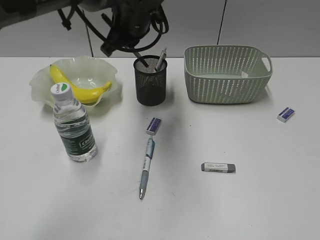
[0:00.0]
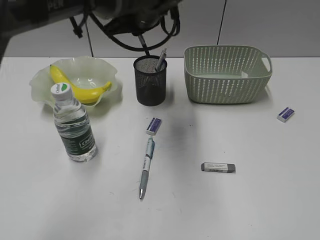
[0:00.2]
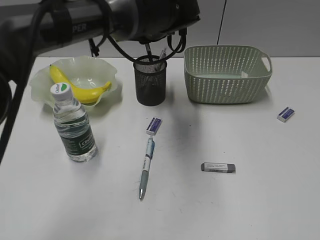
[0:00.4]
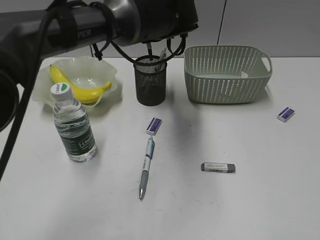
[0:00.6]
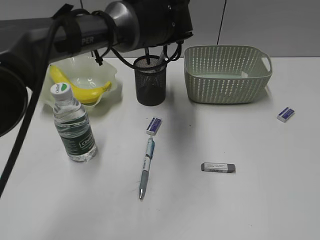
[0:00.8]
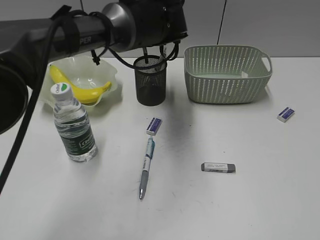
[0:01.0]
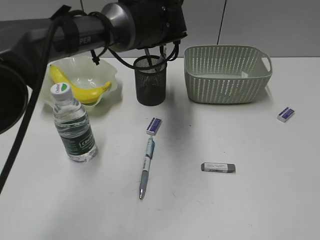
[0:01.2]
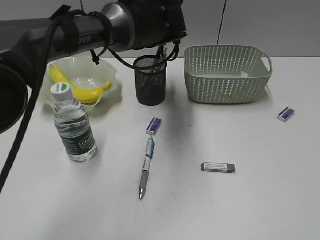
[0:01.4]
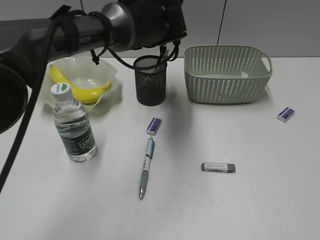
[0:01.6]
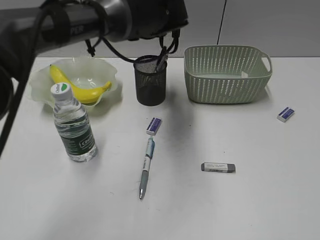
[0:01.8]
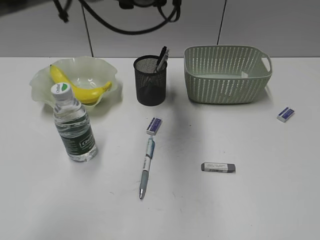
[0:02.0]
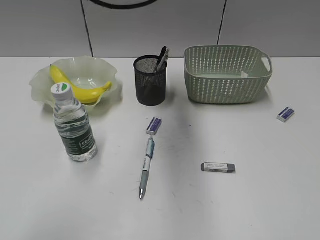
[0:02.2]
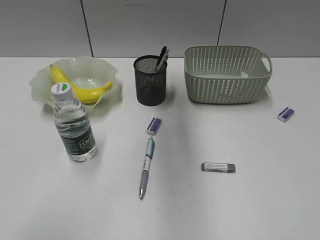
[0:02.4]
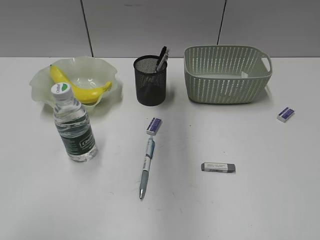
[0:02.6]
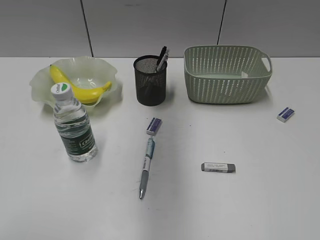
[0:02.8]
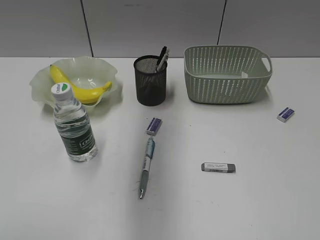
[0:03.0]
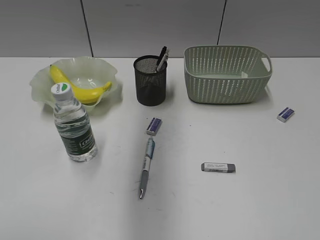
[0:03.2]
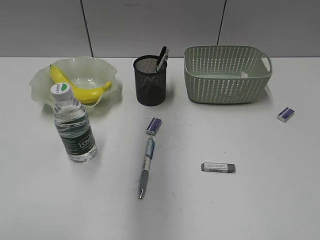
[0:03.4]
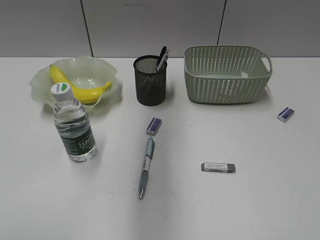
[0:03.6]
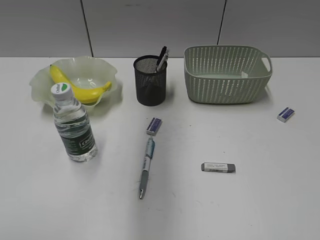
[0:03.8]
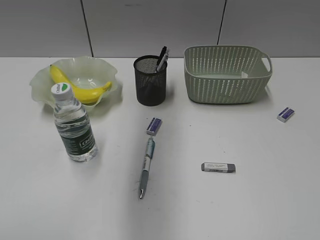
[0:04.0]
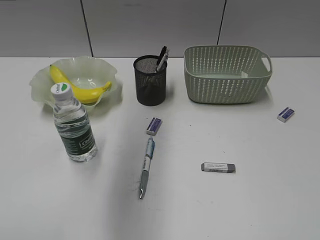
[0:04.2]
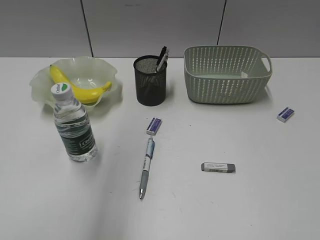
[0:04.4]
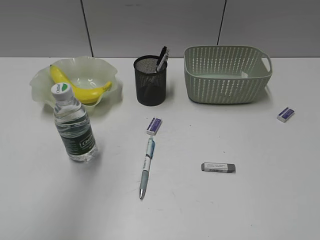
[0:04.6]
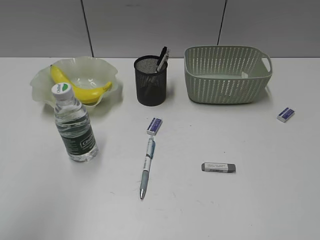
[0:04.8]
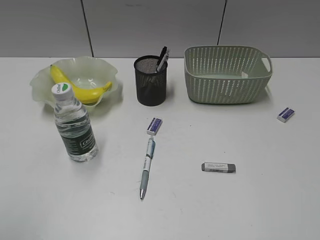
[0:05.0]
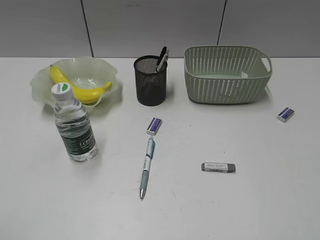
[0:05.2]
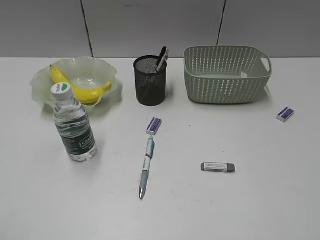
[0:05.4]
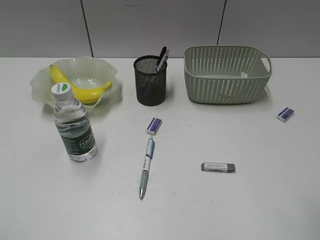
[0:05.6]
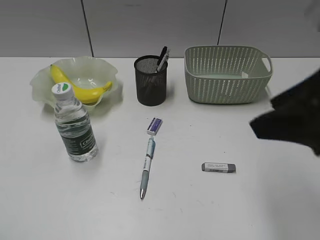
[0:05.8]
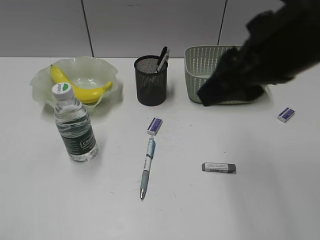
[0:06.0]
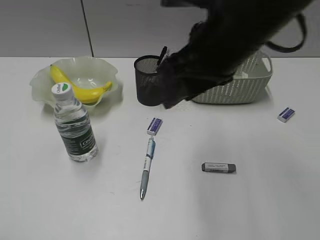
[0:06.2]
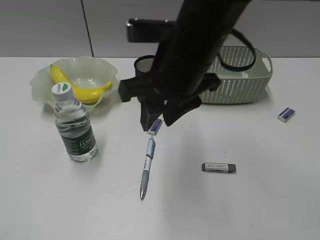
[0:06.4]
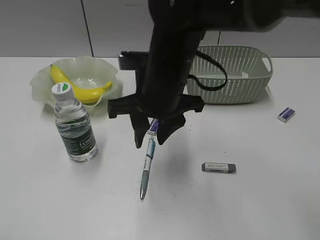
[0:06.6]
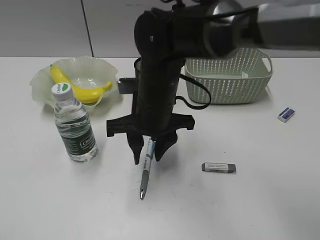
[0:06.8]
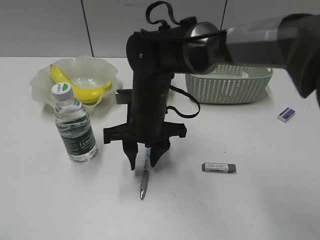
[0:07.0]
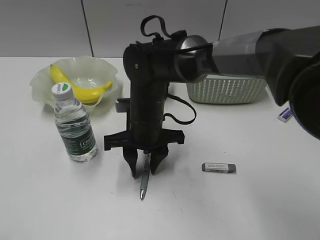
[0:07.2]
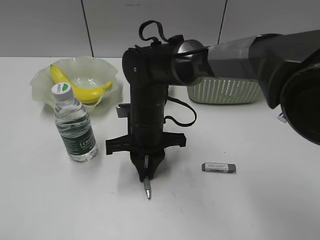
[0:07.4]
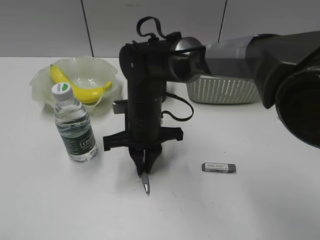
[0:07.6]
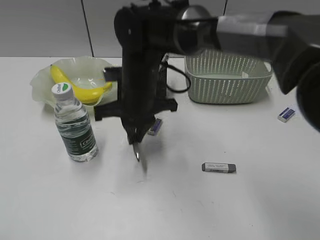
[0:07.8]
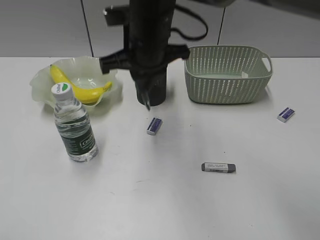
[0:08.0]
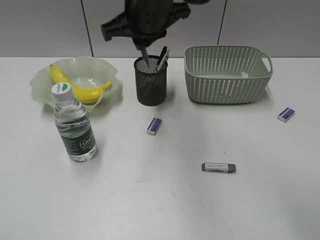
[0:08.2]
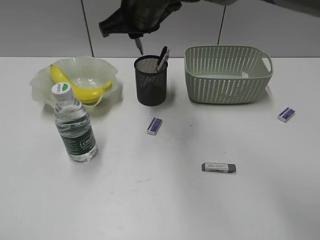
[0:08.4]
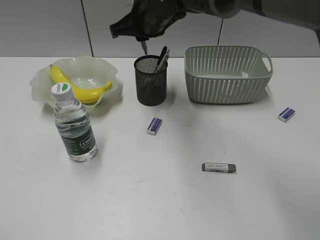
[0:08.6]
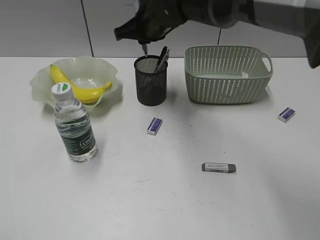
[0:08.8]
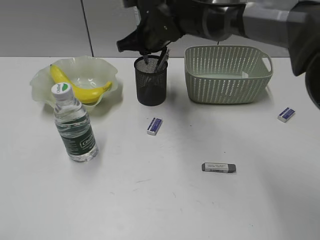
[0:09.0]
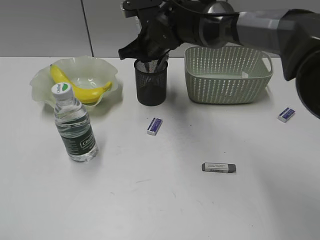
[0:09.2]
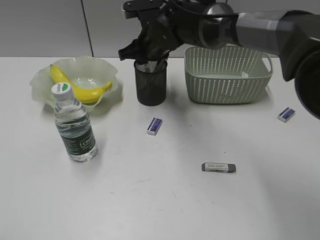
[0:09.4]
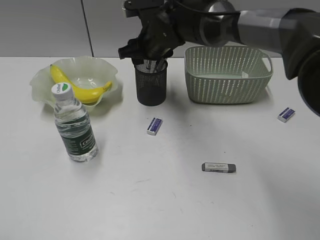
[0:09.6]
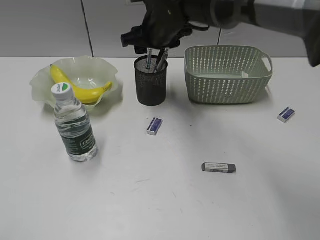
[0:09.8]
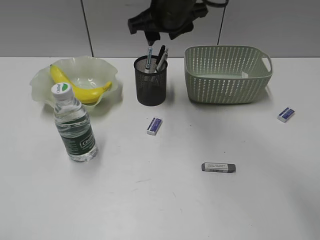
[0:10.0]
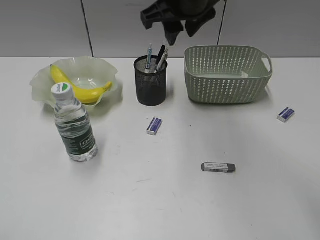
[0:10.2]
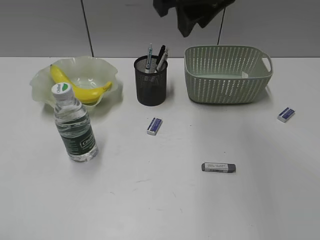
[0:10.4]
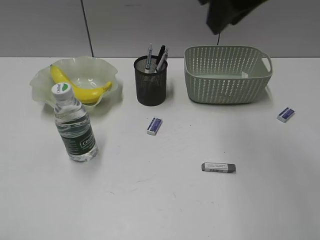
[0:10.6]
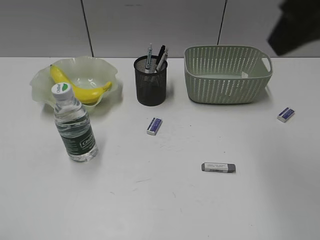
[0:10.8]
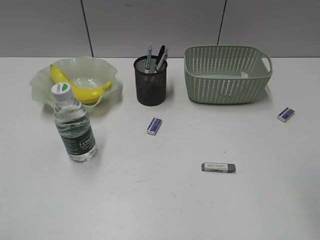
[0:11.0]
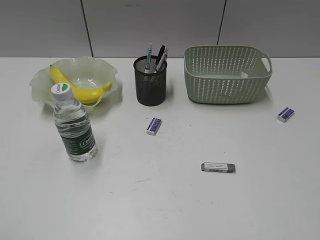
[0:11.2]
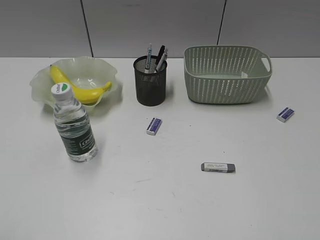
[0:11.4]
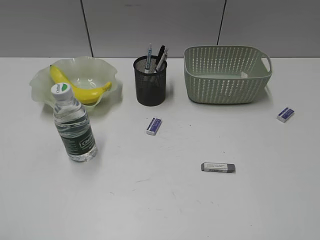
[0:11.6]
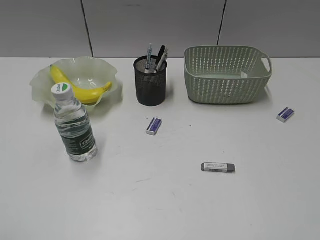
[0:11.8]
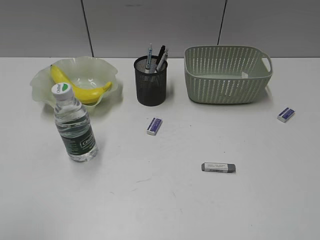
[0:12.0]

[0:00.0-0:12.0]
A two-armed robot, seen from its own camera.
Step, 0:01.8 to 0:07.4: Grasp the blue pen with right gripper.
Step, 0:07.6 to 0:09.6: Place the blue pen in pen holder with right gripper.
0:00.0 to 0:01.6: The left gripper shifts by approximately 5 cm, and opens up.
0:01.6 to 0:03.0: The left gripper heads upward, backward and to the left, covering some 25 cm.
0:03.0 to 0:04.4: The left gripper goes about 10 cm backward and to the left.
0:04.4 to 0:06.0: The left gripper heads backward, to the left and downward, covering approximately 35 cm, while the right gripper goes some 30 cm forward and to the left, and closes.
0:06.0 to 0:07.6: The right gripper heads downward, to the left and forward, covering approximately 30 cm, and closes up.
0:07.6 to 0:09.0: The right gripper travels forward and upward by about 15 cm.
0:09.0 to 0:10.4: The right gripper heads upward, backward and to the right, covering some 20 cm, and opens.
0:10.4 to 0:12.0: The left gripper shifts by some 5 cm; the right gripper heads backward and to the right, covering approximately 40 cm.

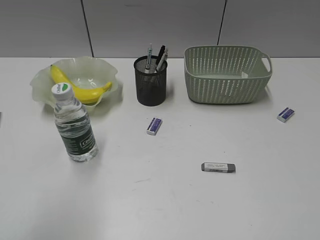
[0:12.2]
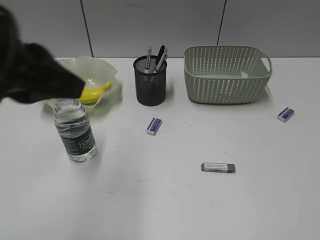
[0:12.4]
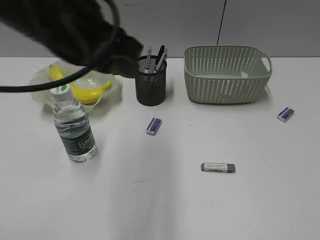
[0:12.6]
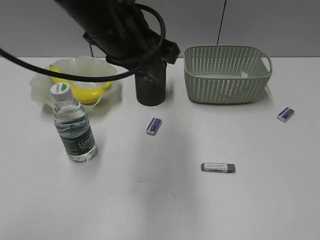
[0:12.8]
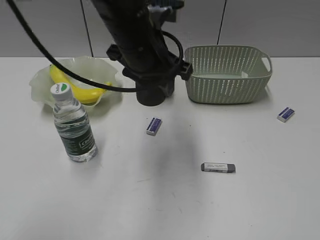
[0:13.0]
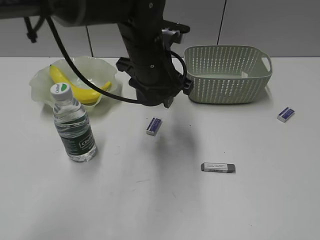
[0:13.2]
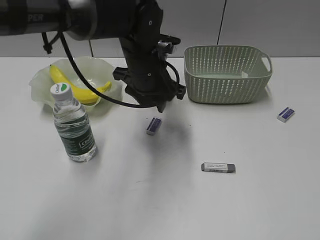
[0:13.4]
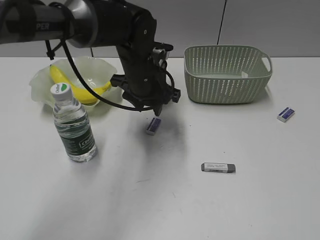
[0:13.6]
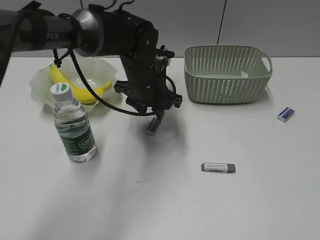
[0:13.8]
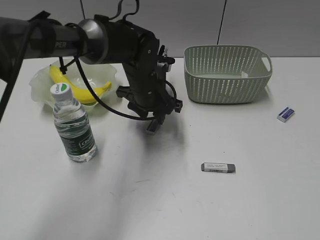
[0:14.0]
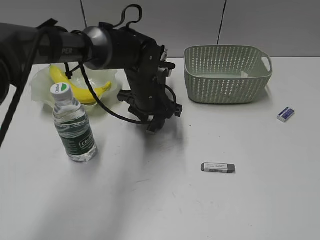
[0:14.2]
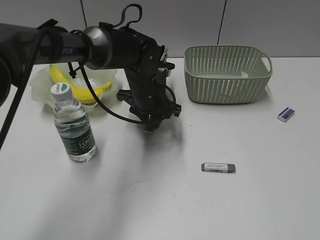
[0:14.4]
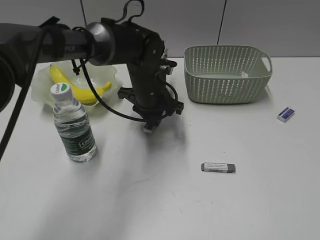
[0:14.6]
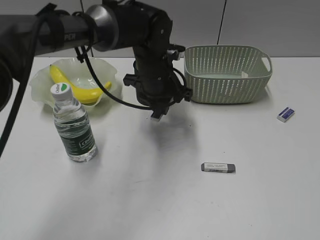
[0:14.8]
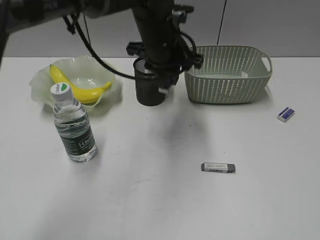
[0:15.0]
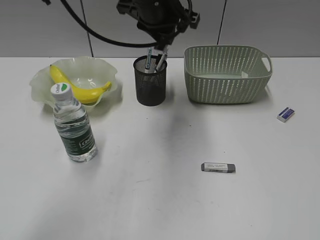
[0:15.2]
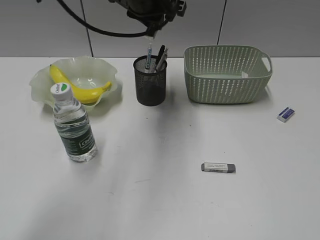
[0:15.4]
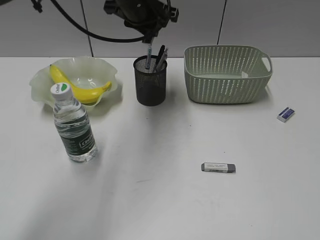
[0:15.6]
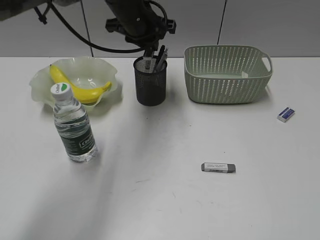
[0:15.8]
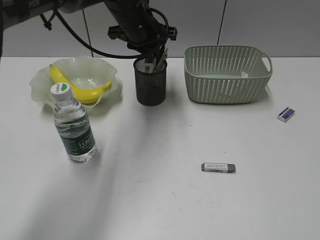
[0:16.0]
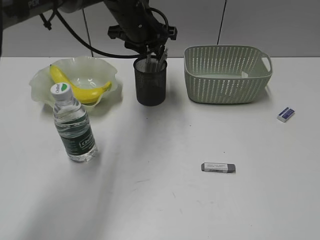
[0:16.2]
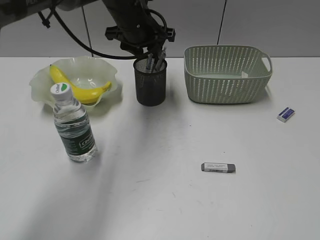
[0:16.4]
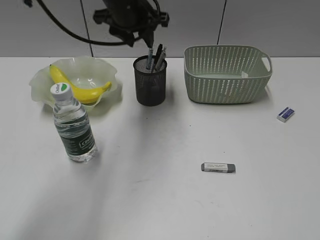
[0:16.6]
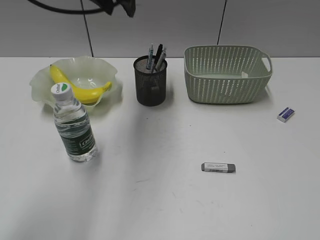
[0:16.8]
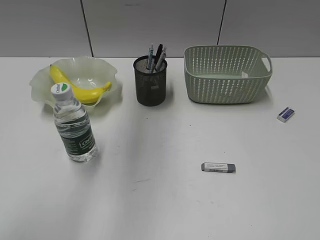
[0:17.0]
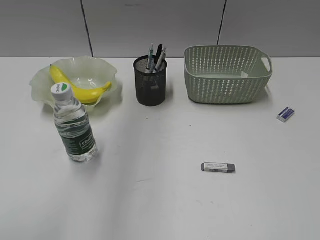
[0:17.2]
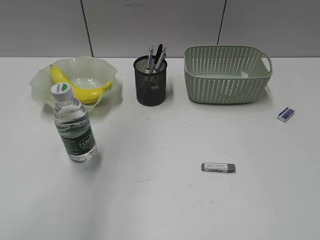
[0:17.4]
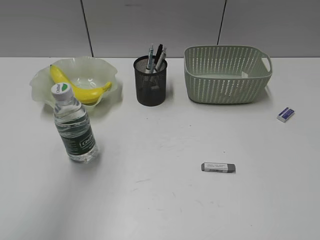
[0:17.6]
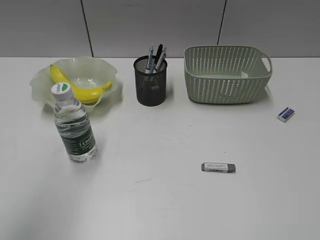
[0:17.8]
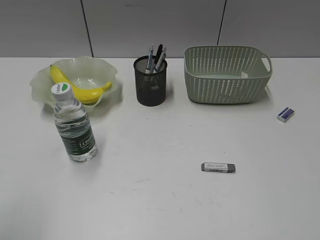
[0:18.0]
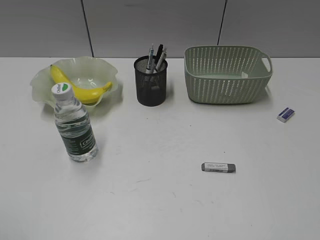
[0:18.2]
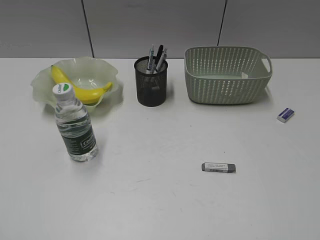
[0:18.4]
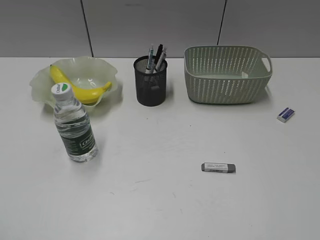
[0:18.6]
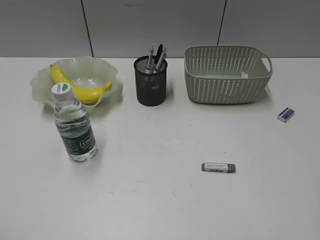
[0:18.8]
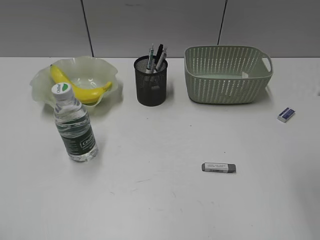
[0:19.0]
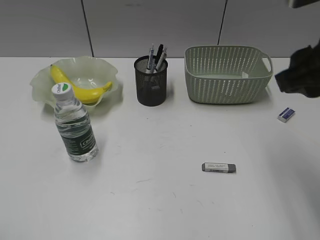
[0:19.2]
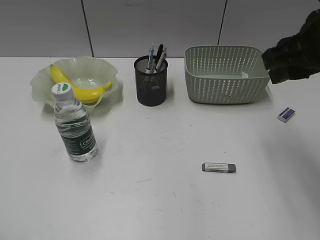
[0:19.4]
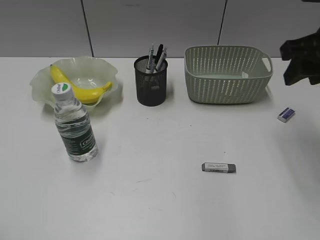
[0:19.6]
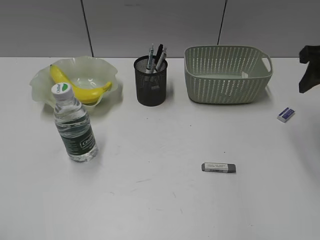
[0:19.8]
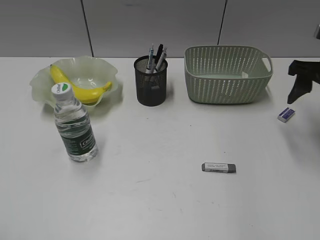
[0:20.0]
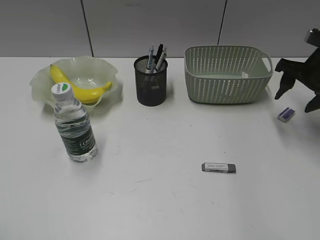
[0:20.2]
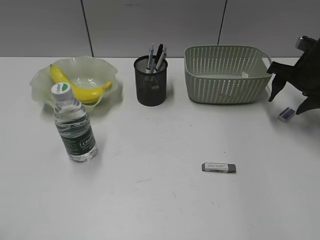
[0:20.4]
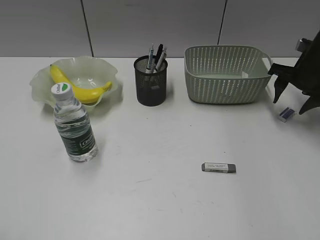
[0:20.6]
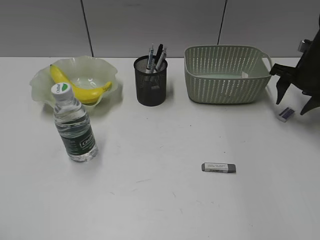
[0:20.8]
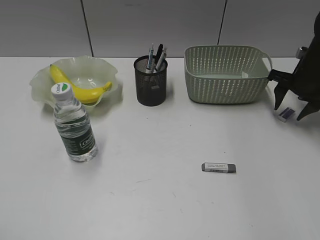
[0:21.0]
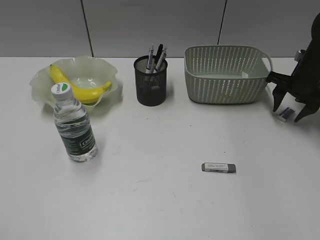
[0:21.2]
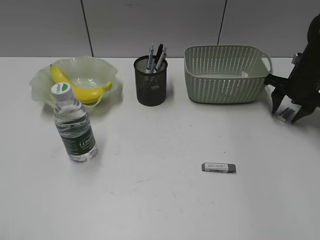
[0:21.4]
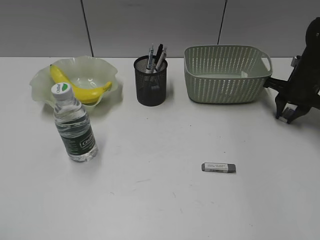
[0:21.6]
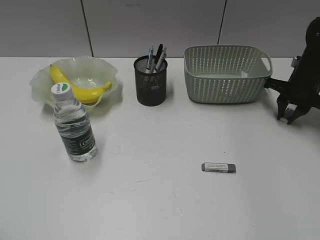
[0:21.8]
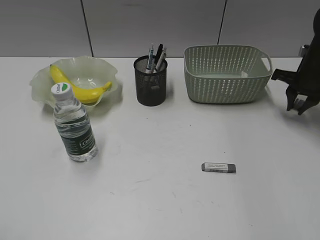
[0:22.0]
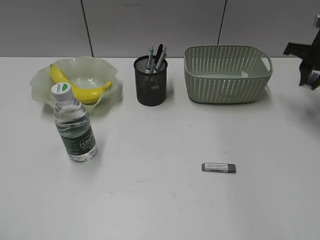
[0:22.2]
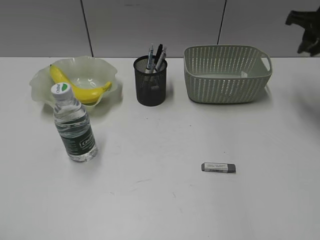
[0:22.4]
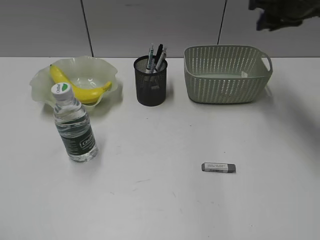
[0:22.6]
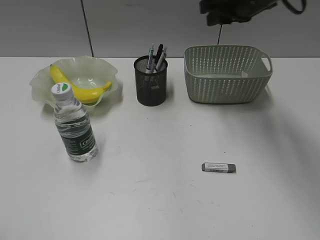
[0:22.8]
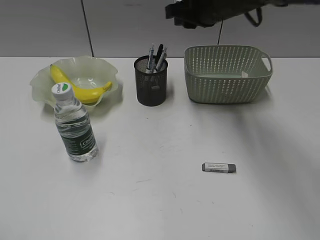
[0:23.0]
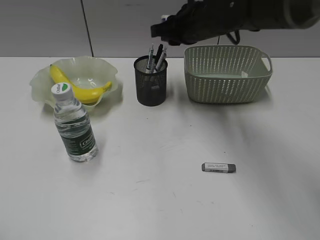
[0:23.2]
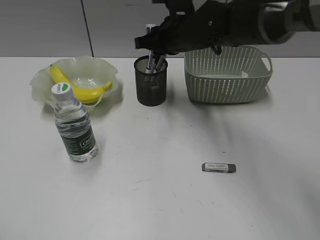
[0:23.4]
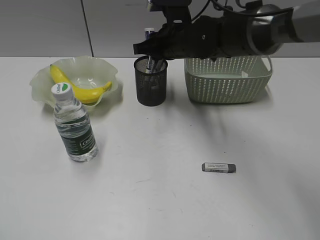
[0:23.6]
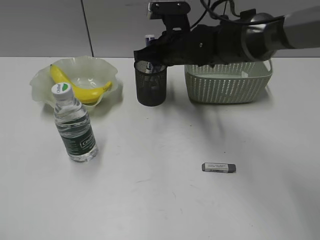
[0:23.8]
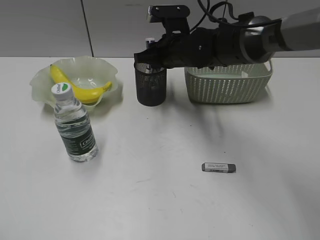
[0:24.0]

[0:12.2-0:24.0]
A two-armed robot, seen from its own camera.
Step, 0:12.2 to 0:14.4: Grasp the eraser with left gripper.
Step, 0:14.6 to 0:16.4: Place the eraser in pen holder with left gripper.
Step, 0:16.6 to 0:21.8: Grasp the eraser with right gripper.
0:12.2 to 0:13.6: The left gripper heads forward, to the right and downward, covering about 40 cm.
0:13.6 to 0:15.2: The left gripper shifts approximately 10 cm upward, and closes its fingers.
0:15.2 to 0:16.6: The left gripper ends up approximately 5 cm from where it was, and opens up.
0:16.6 to 0:18.2: The left gripper travels backward and to the left by approximately 50 cm.
0:18.2 to 0:19.6: The right gripper travels forward by about 30 cm.
0:19.6 to 0:21.0: The right gripper moves downward, forward and to the right, roughly 20 cm.
0:21.0 to 0:22.6: The right gripper is displaced upward and to the left by roughly 15 cm, and closes up.
0:22.6 to 0:24.0: The right gripper moves to the left and downward, roughly 25 cm.
